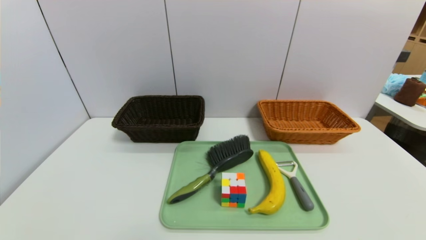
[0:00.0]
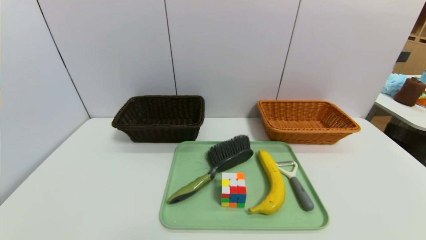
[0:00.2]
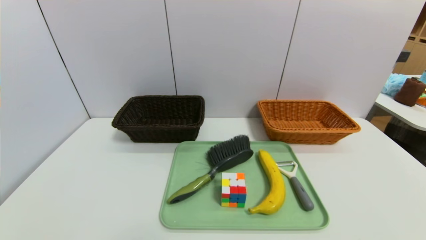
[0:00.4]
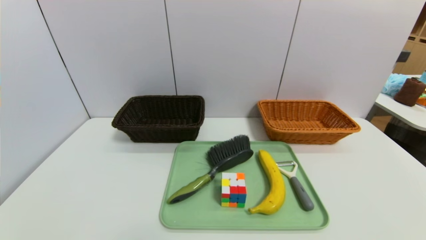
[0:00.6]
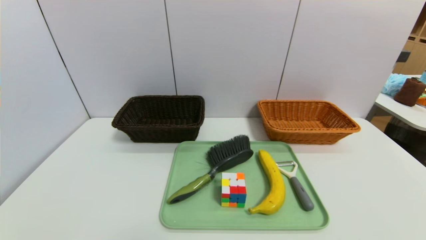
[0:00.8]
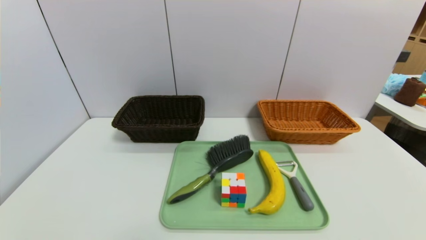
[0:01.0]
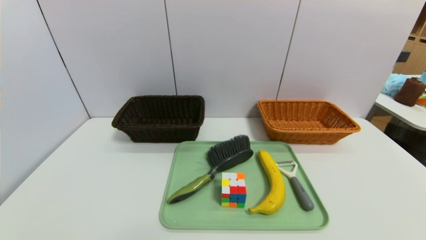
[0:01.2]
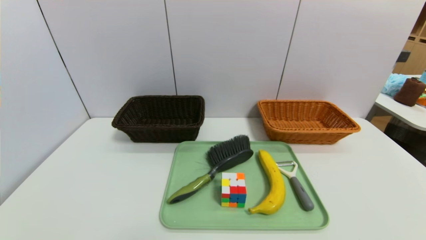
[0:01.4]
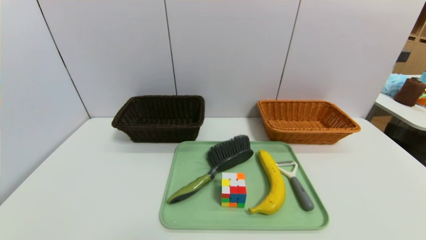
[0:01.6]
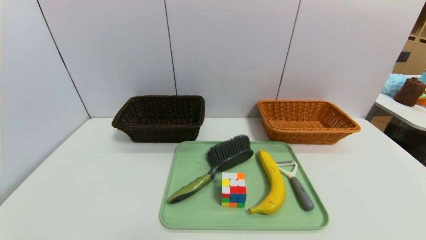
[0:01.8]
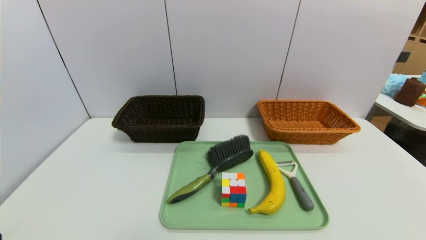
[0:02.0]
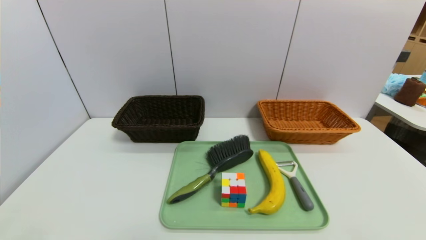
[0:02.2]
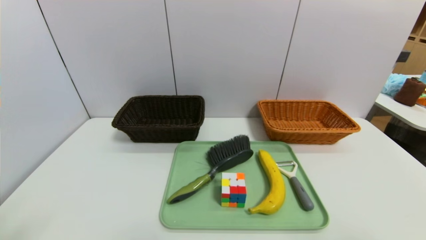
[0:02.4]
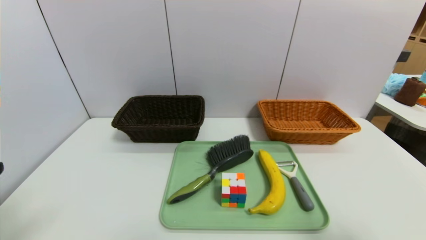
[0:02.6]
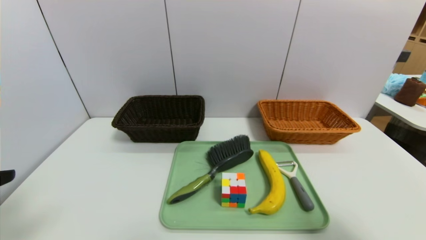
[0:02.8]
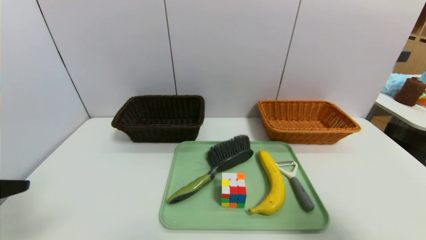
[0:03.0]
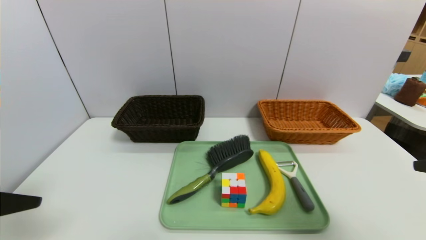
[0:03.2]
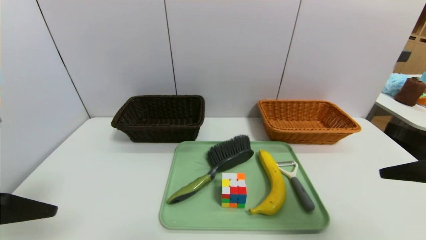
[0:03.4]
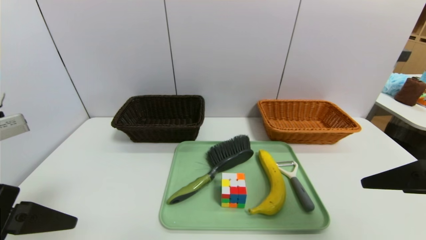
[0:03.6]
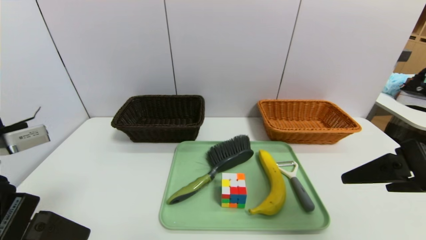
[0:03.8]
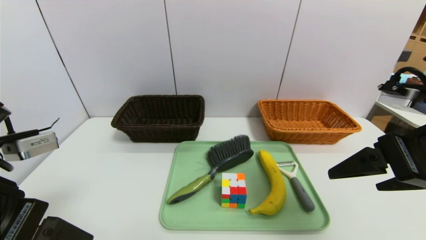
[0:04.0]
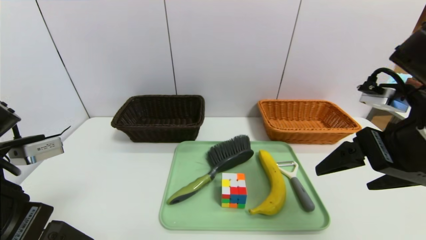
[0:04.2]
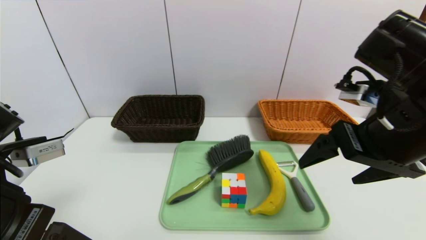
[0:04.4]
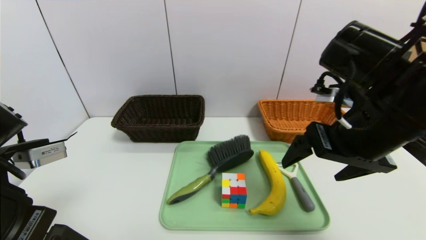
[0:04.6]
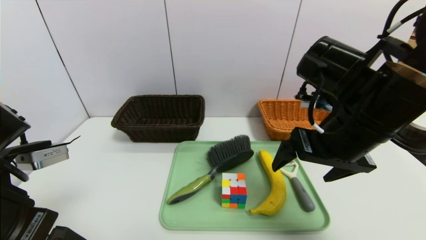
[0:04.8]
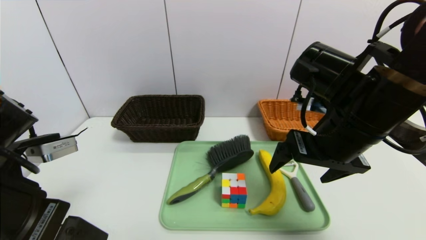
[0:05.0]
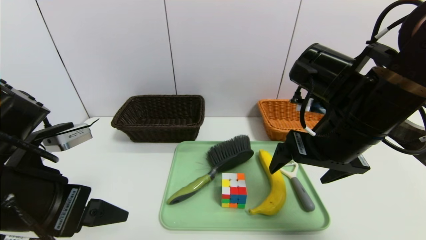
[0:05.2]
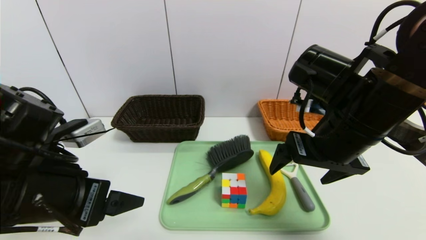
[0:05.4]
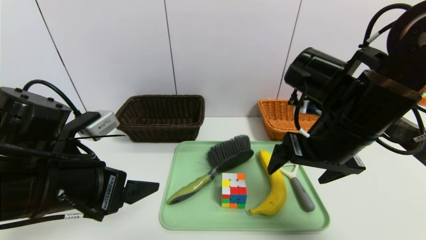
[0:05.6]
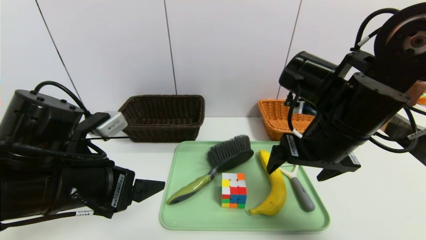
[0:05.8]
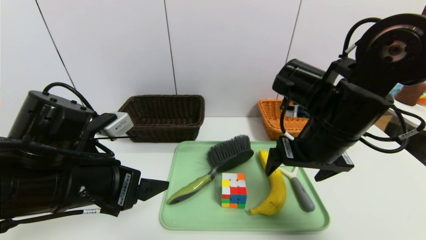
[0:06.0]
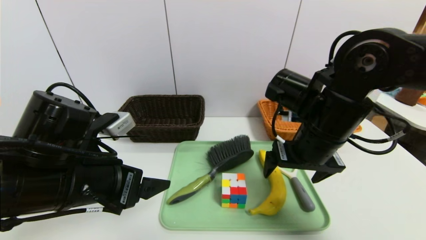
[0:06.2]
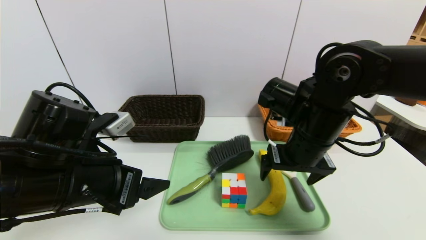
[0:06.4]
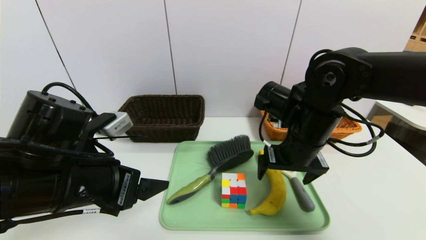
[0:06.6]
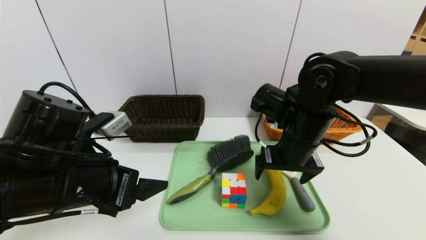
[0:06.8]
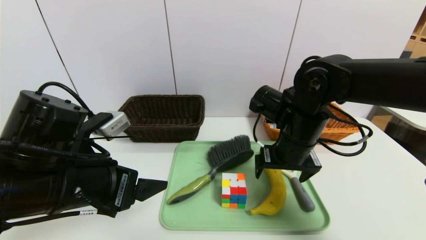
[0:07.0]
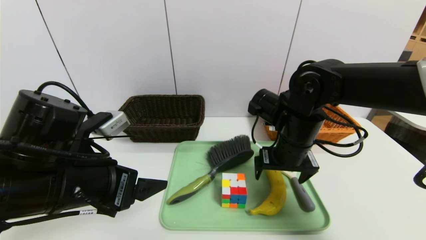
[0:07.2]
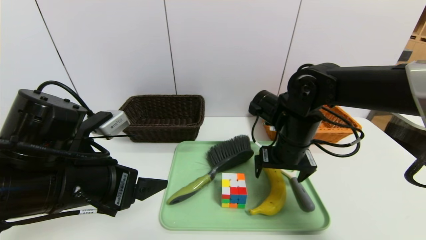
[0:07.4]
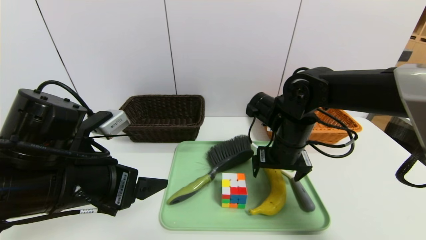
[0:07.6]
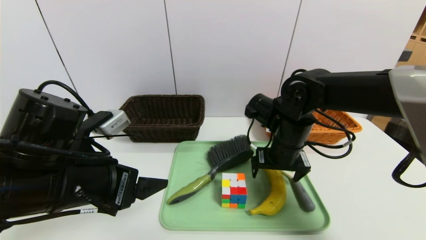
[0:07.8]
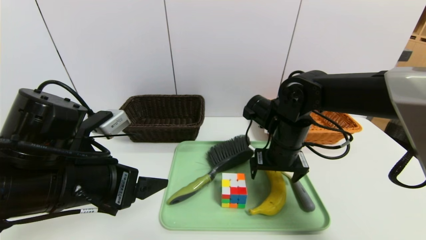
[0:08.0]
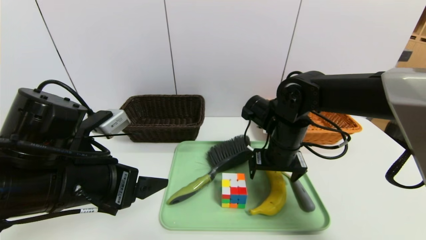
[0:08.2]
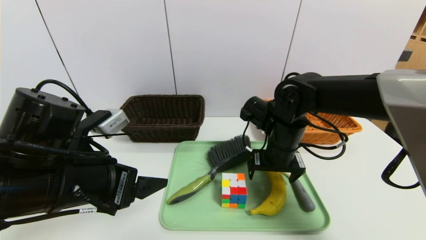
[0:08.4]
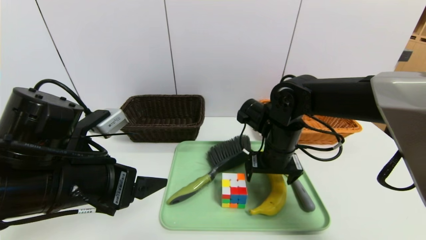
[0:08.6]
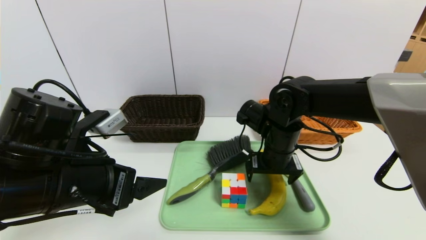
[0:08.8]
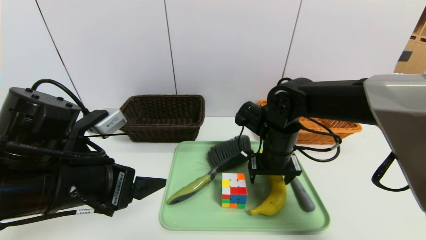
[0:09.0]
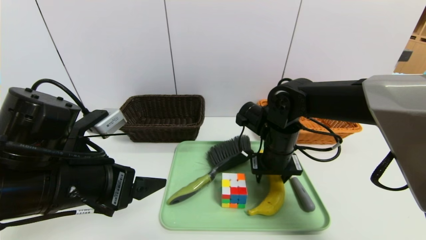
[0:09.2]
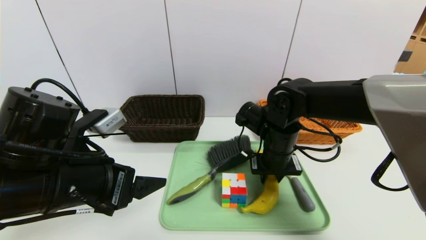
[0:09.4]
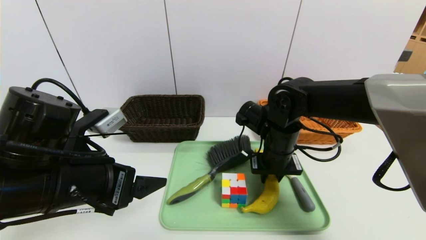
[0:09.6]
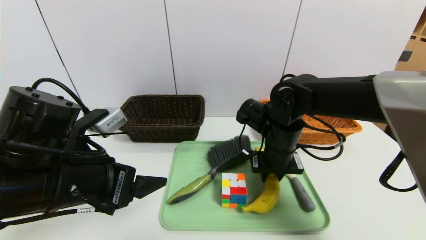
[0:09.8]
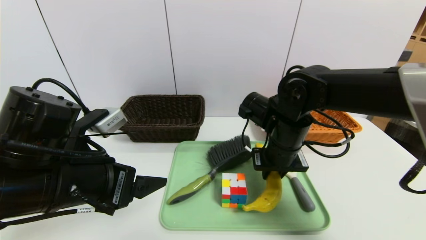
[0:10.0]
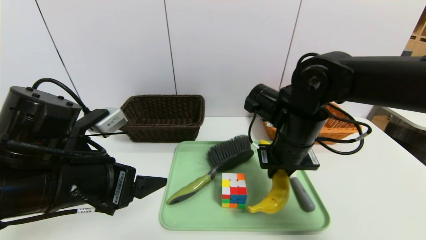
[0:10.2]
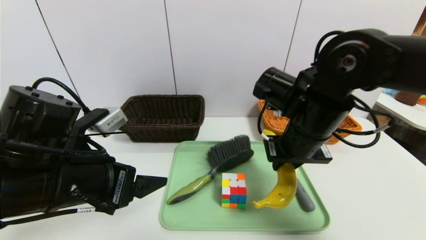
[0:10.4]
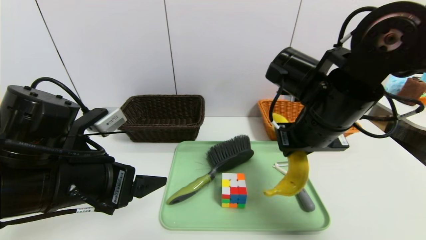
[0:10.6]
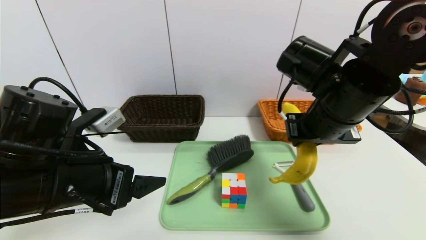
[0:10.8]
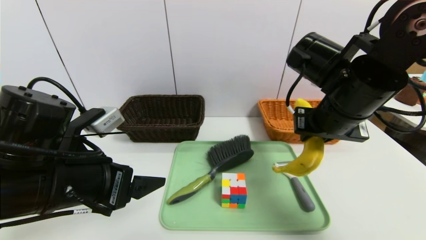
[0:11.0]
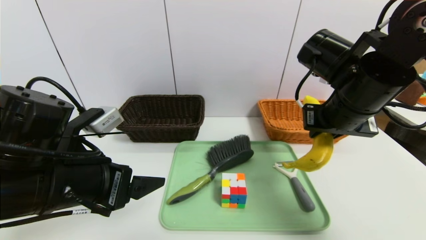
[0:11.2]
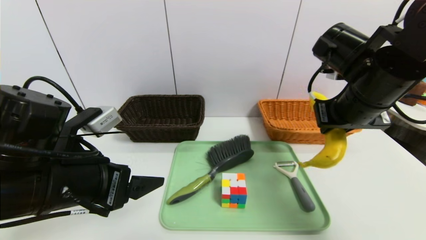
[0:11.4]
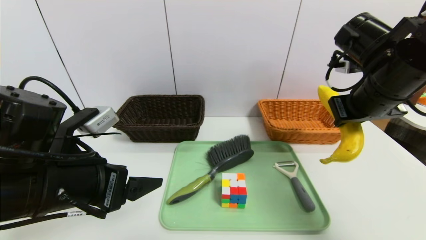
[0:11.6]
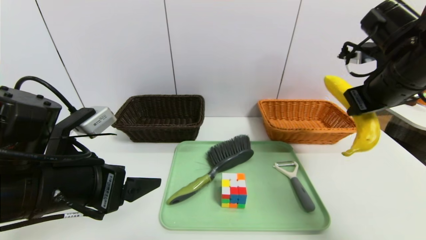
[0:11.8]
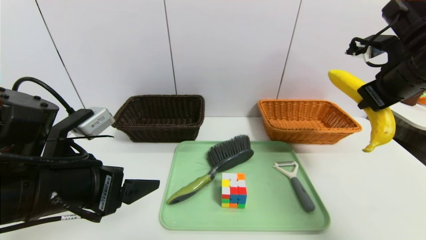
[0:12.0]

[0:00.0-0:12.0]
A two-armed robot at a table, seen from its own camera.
Task of the whole recording: place the food in the right basket with the right gripper, and place the non food items in the left basket with the left gripper.
0:01.6 to 0:03.0: The two grippers go about 25 cm upward.
0:03.0 to 0:04.4: The left gripper is displaced to the right by about 5 cm, while the right gripper is displaced forward and to the left by some 15 cm.
0:04.4 to 0:06.0: The right gripper is displaced forward and to the left by some 10 cm. Meanwhile the left gripper moves forward and to the right, about 10 cm.
0:06.0 to 0:07.6: The right gripper heads downward and forward, covering some 10 cm.
0:07.6 to 0:09.0: There are only small adjustments of the grippers.
0:09.0 to 0:10.4: The right gripper heads upward, covering roughly 10 cm, and closes its fingers.
0:10.4 to 0:12.0: The right gripper moves to the right and upward, about 20 cm.

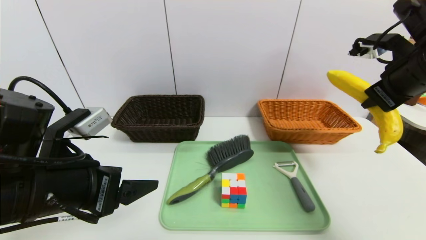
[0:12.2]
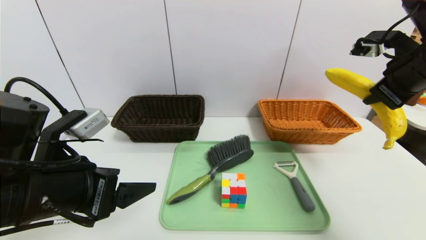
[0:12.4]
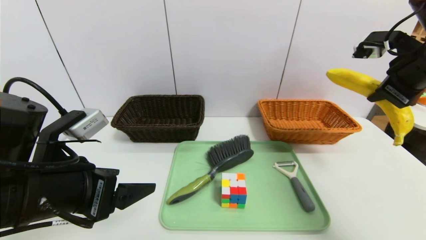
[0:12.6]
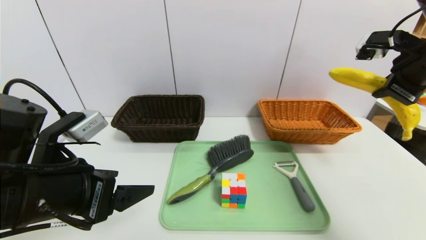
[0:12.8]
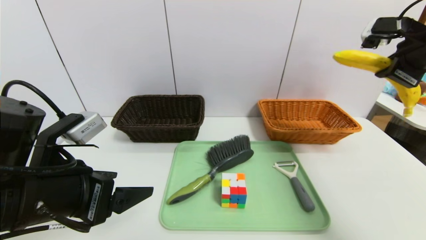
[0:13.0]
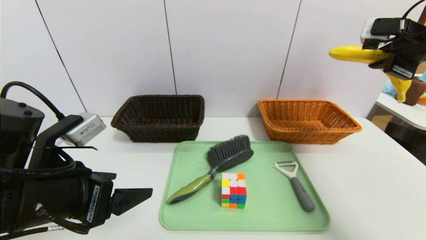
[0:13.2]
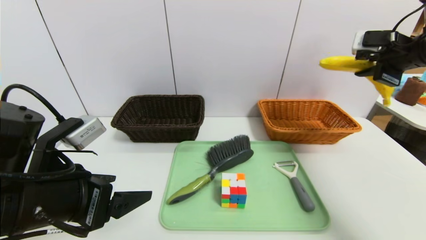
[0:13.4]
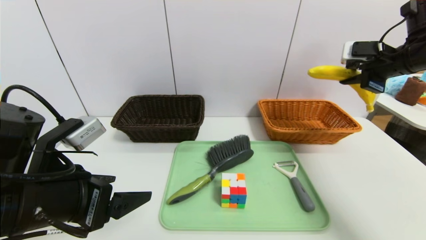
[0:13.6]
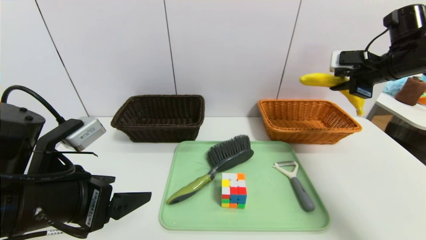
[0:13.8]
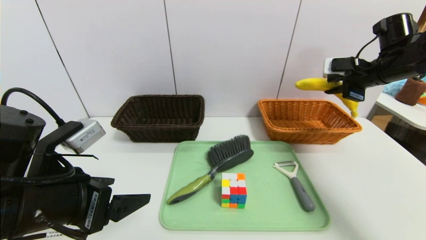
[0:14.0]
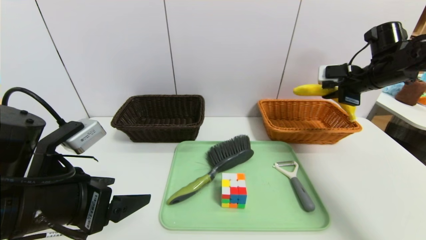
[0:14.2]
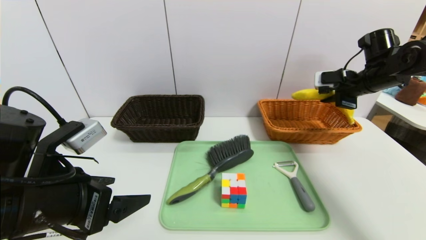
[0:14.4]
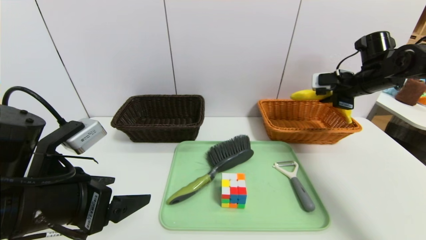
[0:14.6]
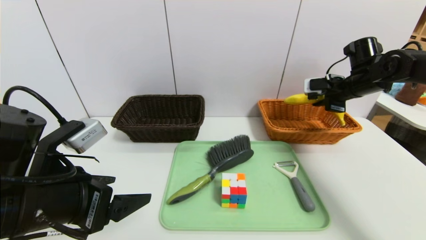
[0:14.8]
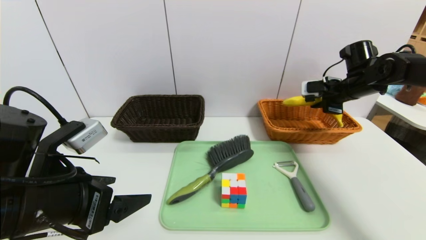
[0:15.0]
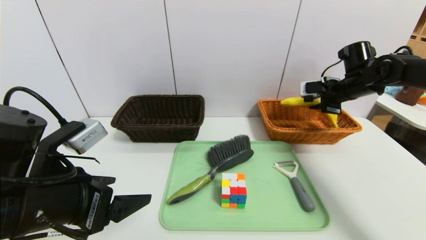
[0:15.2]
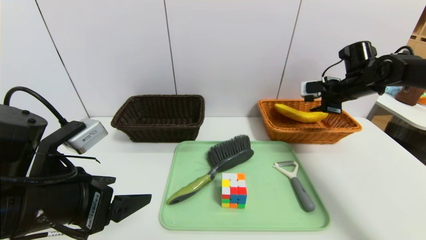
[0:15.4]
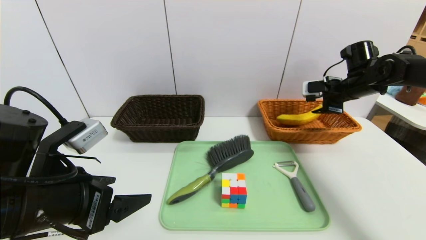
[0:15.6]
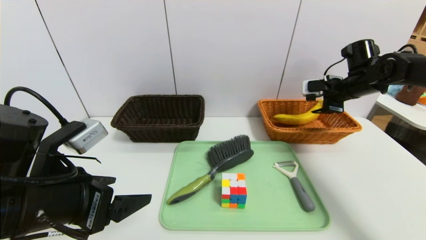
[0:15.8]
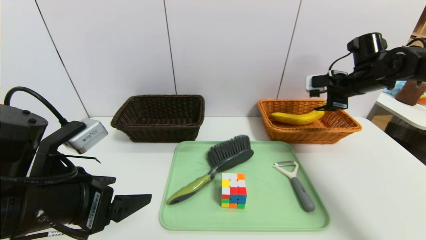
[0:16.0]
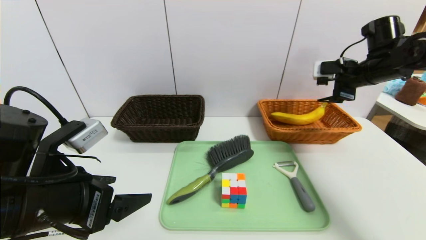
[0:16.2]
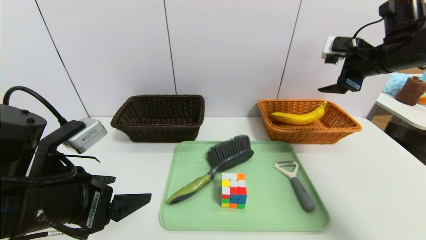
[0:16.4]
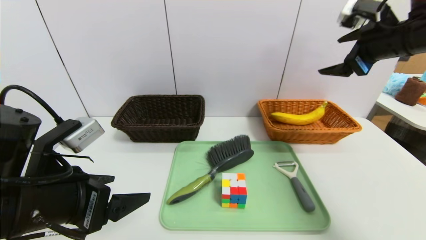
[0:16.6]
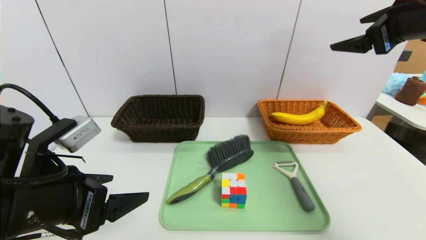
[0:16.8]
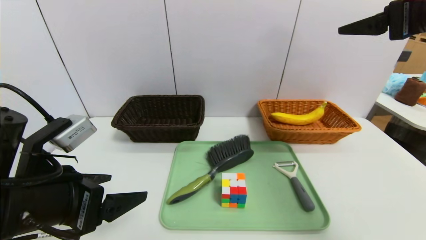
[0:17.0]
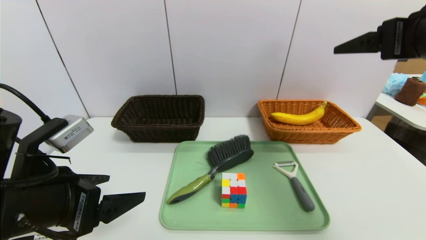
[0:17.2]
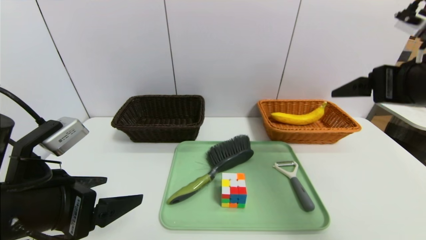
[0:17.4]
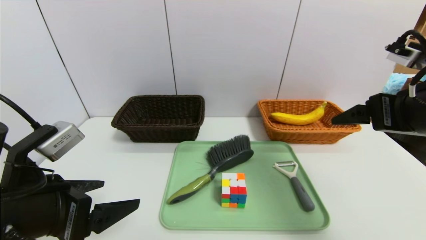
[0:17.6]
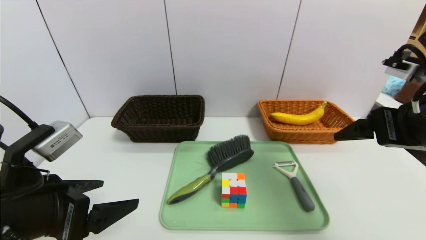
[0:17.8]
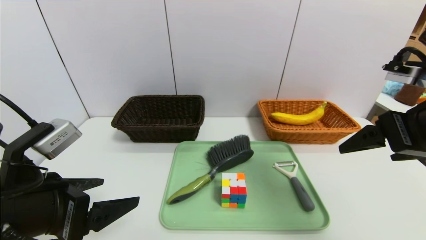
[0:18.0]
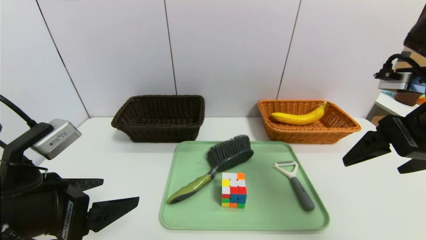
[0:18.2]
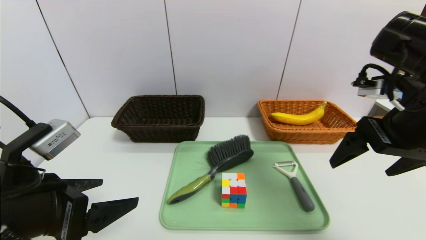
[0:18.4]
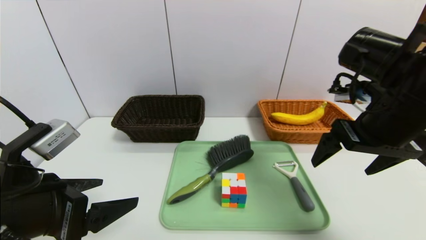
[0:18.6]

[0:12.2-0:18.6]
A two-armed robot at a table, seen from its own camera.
Task of the whole recording: place the food in the right basket with the right gripper, and place the non food items in the left basket with the left gripper.
Step, 0:12.2 to 0:15.8: Grasp the banana and put it in the right basket.
0:12.2 to 0:13.8: The right gripper heads forward and to the right, covering some 10 cm.
0:13.8 to 0:15.4: The right gripper travels downward and forward by some 10 cm, and opens up.
0:15.4 to 0:17.0: The right gripper shifts some 25 cm backward and upward, and opens its fingers.
0:17.0 to 0:18.6: The right gripper is displaced downward and to the left by approximately 10 cm.
